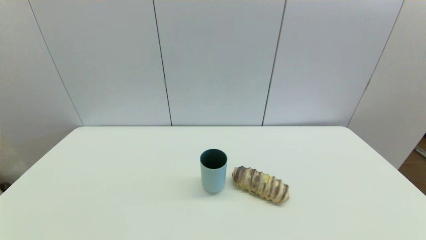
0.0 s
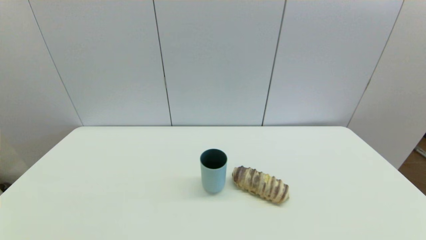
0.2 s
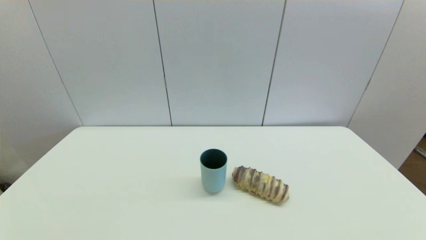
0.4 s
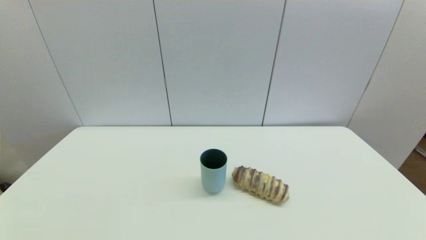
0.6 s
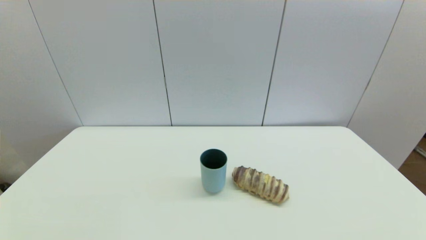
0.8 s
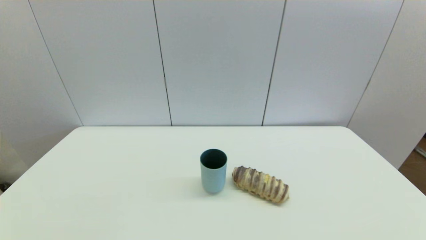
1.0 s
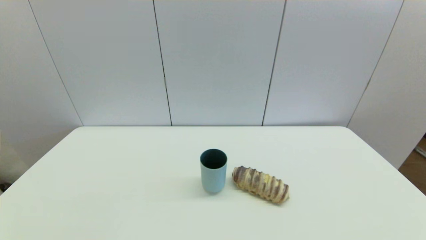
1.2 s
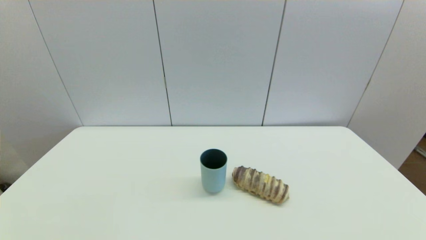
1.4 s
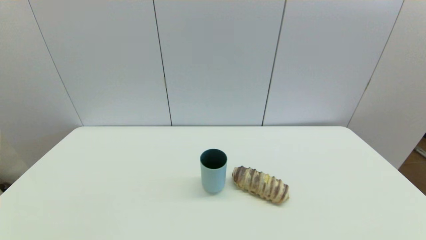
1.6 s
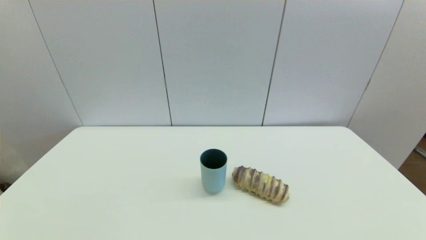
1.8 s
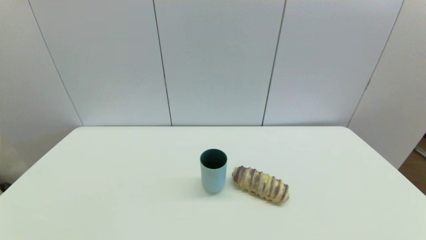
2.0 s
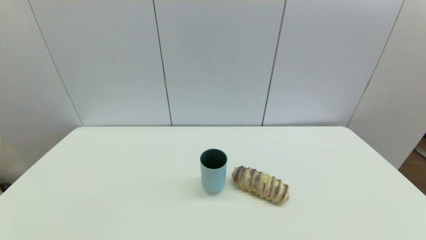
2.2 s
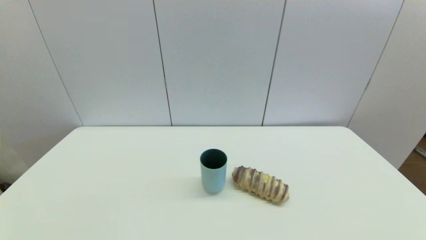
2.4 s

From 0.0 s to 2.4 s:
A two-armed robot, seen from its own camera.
From 1.2 s to 2.4 s: The two grippers keep their place.

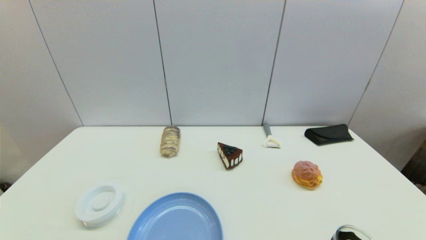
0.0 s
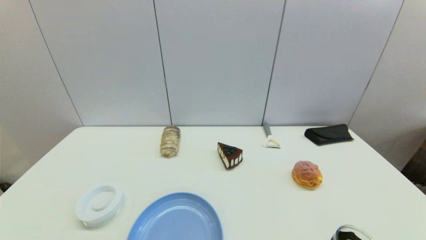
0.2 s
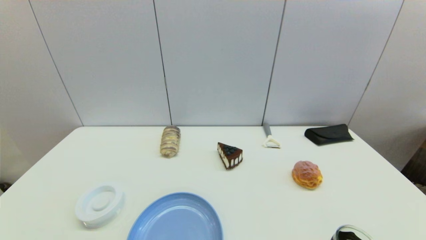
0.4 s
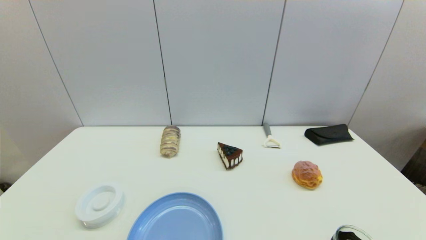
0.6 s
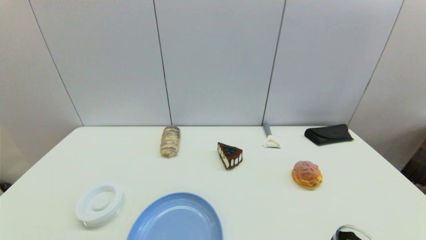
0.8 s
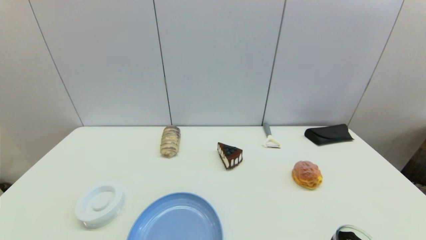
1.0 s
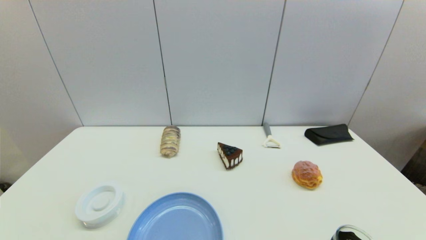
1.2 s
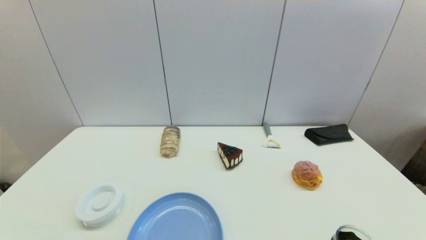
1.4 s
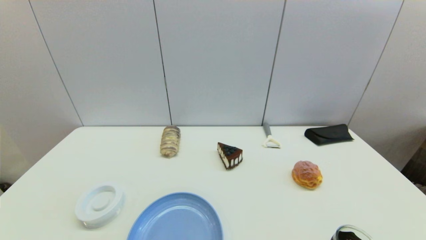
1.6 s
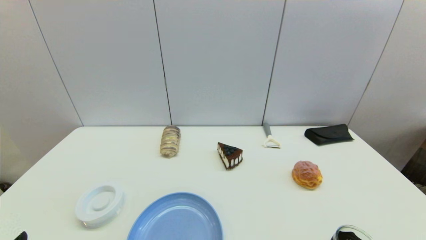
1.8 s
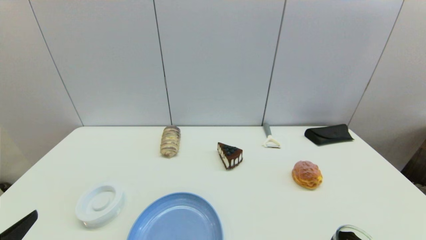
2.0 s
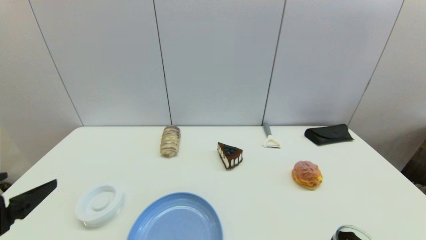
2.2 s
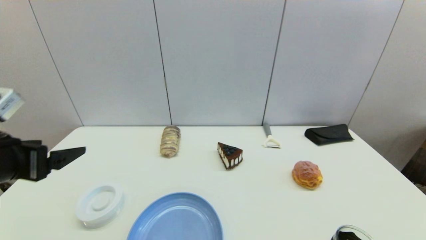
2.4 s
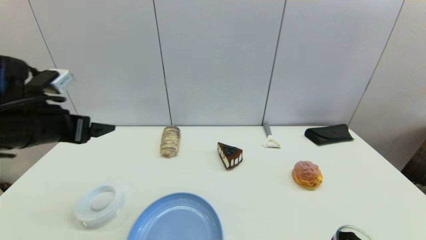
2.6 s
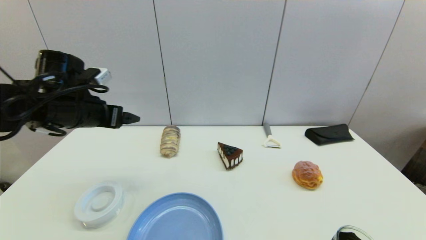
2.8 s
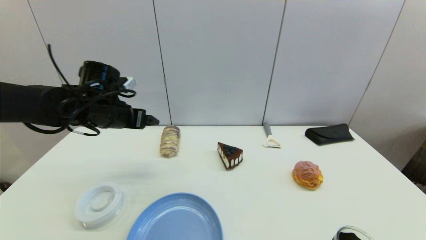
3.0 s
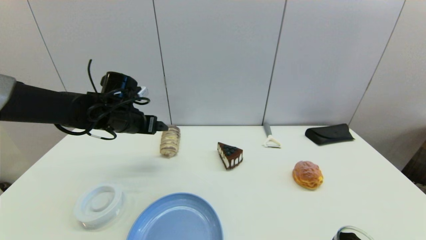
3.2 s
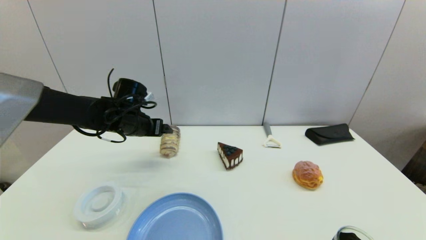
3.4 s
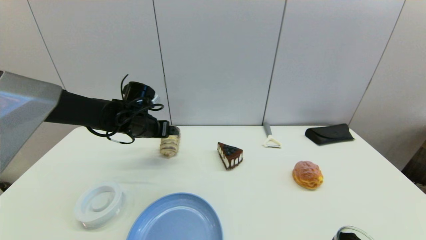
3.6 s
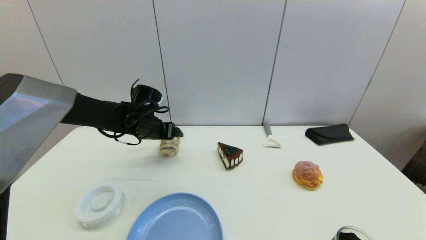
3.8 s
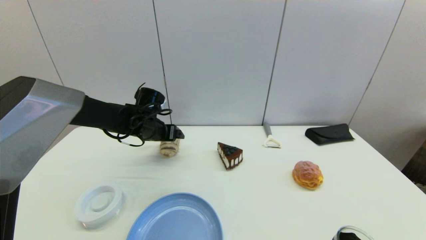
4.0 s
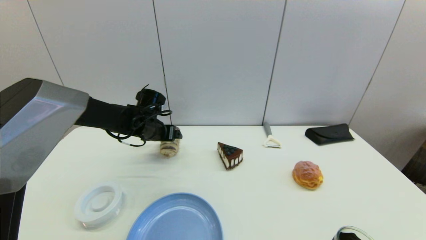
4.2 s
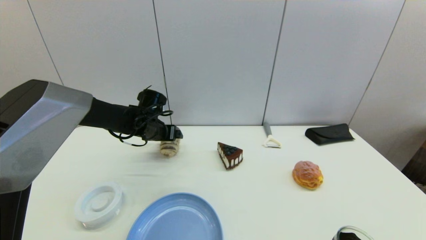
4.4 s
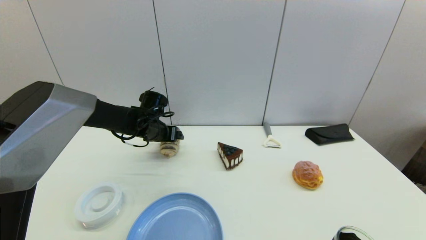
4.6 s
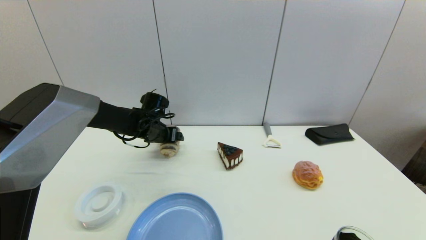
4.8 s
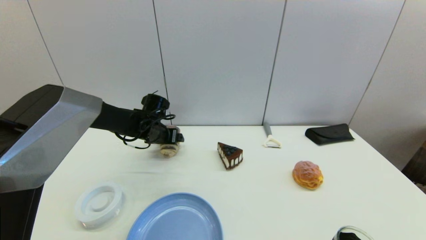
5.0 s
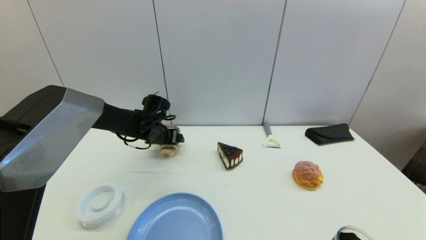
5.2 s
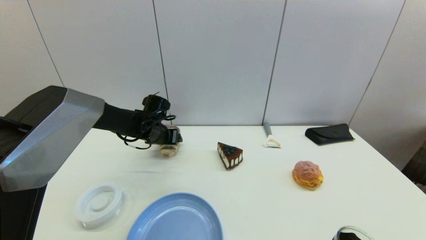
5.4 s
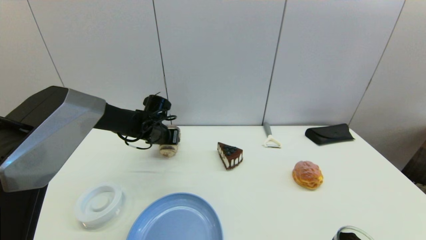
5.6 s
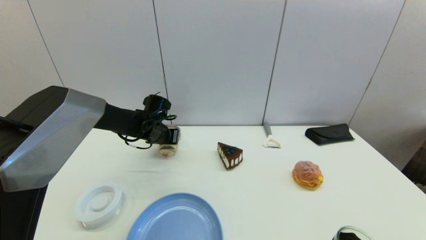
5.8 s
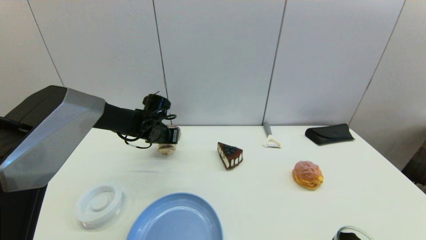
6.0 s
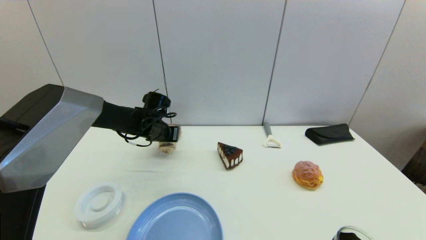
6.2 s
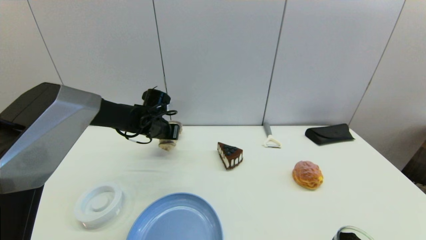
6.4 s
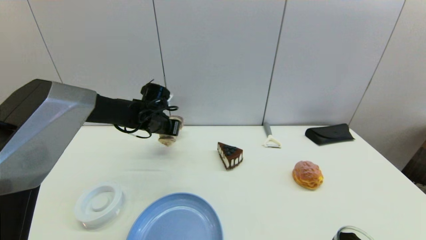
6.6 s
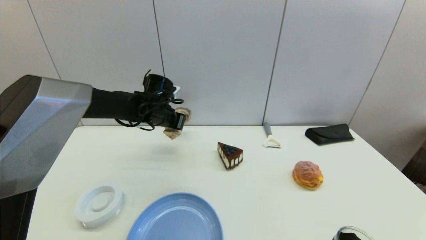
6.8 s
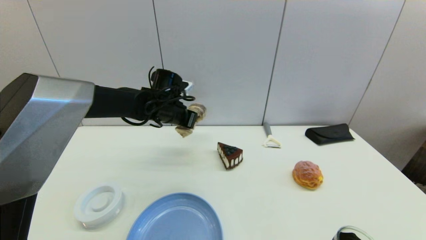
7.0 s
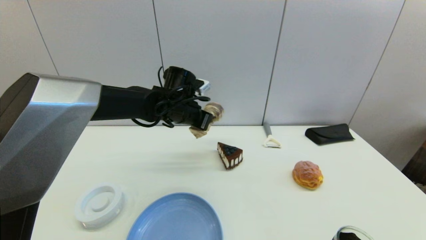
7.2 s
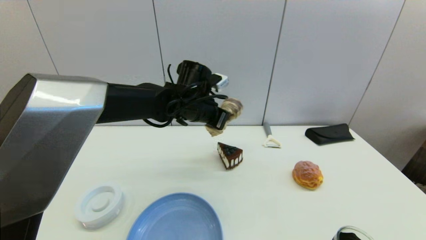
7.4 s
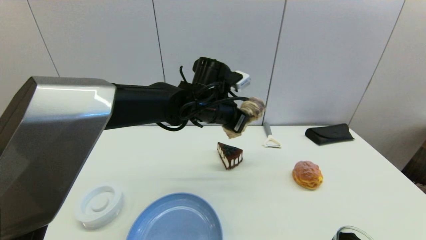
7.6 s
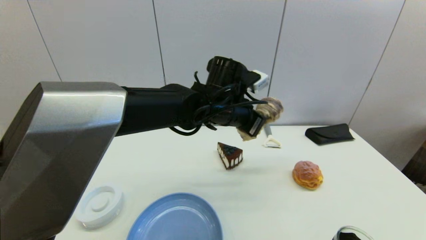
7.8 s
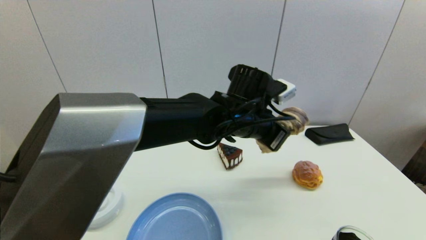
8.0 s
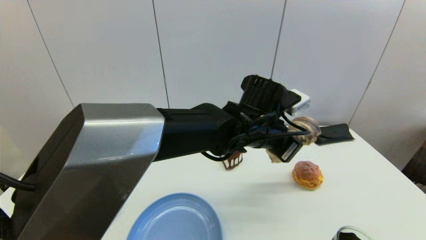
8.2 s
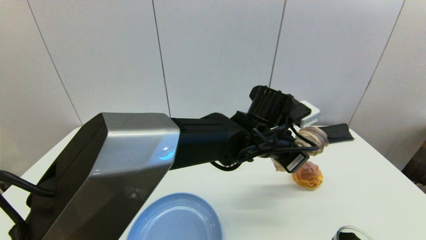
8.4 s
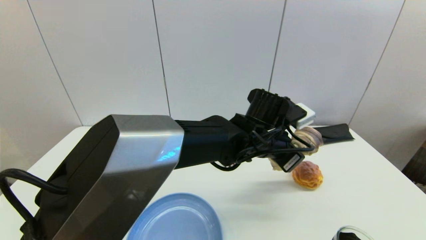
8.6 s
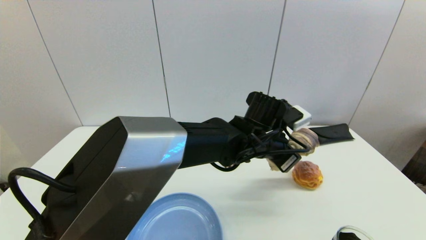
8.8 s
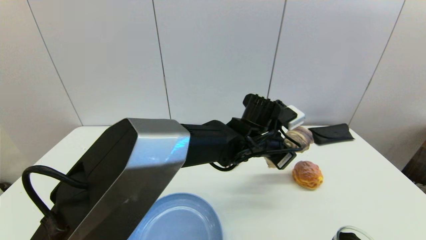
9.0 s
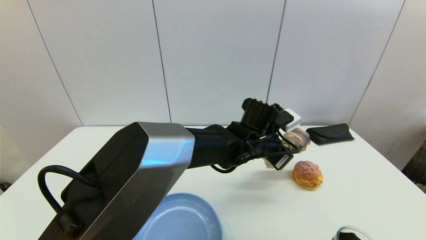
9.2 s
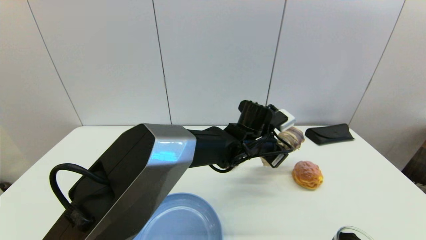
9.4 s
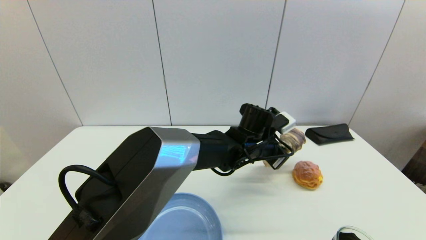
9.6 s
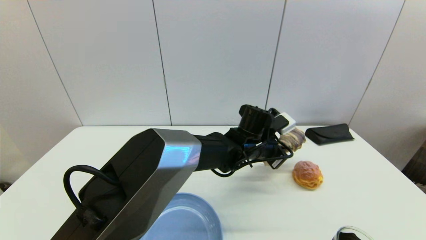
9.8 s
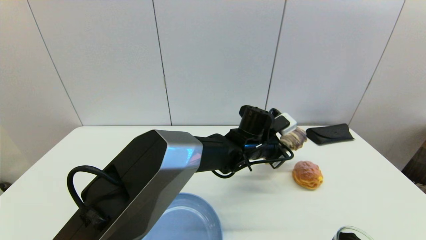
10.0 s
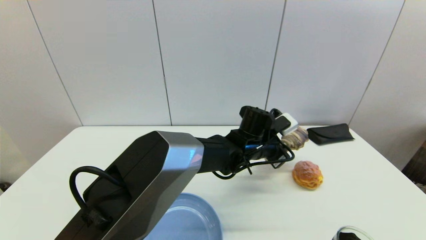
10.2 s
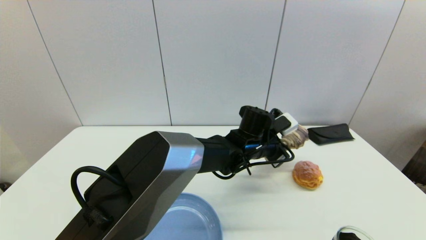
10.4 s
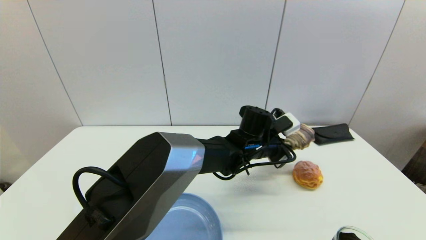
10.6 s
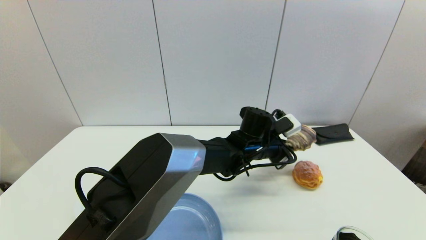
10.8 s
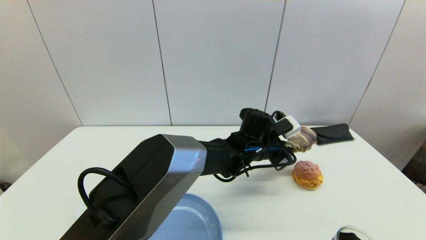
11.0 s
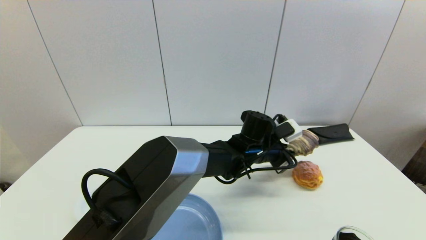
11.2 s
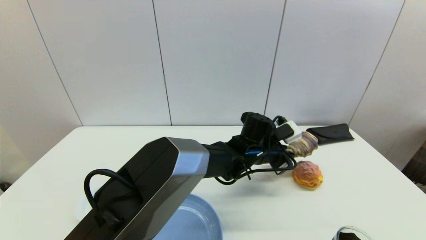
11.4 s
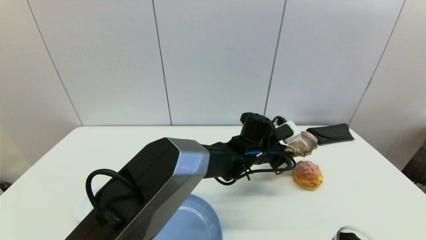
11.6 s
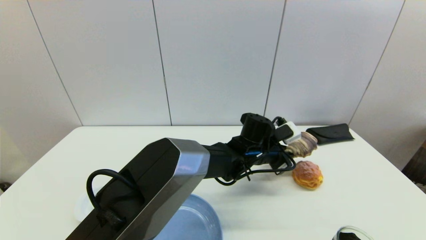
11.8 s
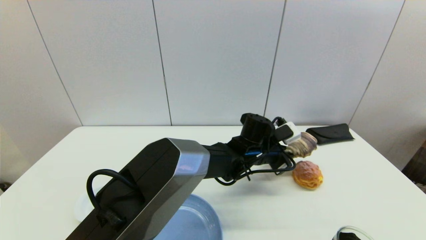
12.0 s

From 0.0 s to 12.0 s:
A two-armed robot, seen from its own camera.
Step, from 1.8 s to 5.8 s: Grasp the long bread with left gripper.
From 1.6 s to 3.0 s: The left gripper goes approximately 35 cm forward.
From 3.0 s to 4.4 s: The left gripper moves downward, forward and to the right, roughly 10 cm.
From 4.4 s to 6.0 s: The left gripper closes up.
From 6.0 s to 7.6 s: The left gripper moves to the right, upward and backward, approximately 20 cm.
From 7.6 s to 9.0 s: The left gripper travels to the right and downward by approximately 10 cm.
From 9.0 s to 10.4 s: The left gripper changes place by roughly 5 cm.
From 10.4 s to 12.0 s: There are only small adjustments of the grippers.

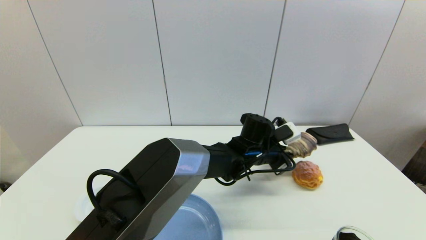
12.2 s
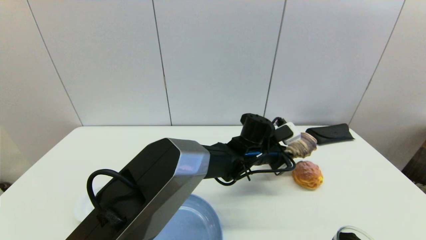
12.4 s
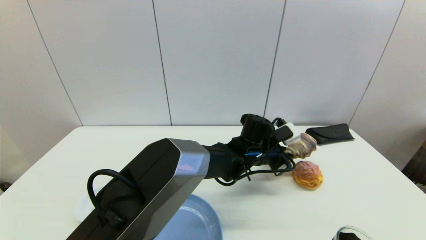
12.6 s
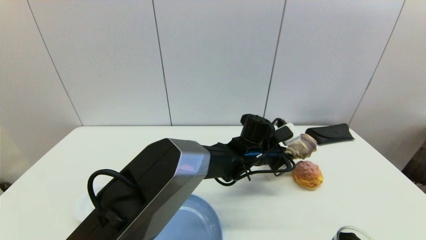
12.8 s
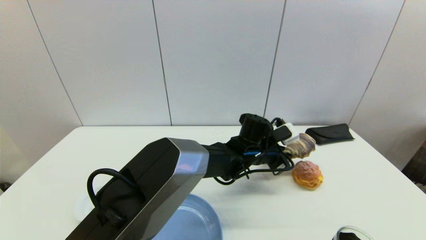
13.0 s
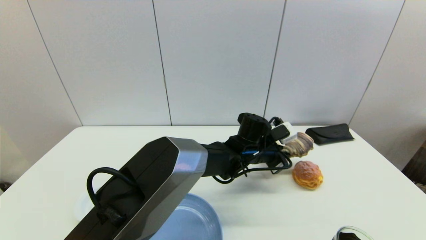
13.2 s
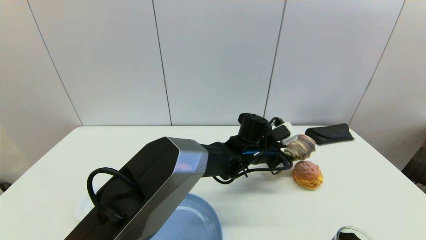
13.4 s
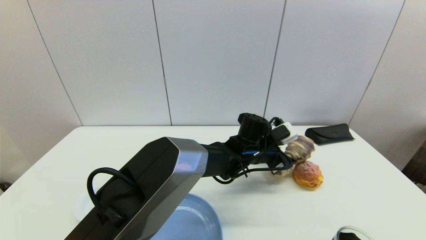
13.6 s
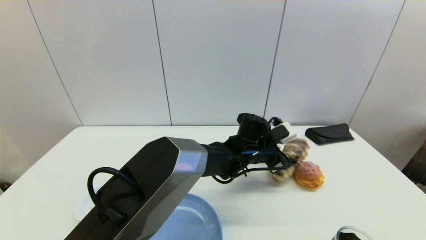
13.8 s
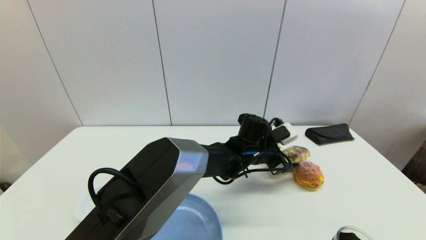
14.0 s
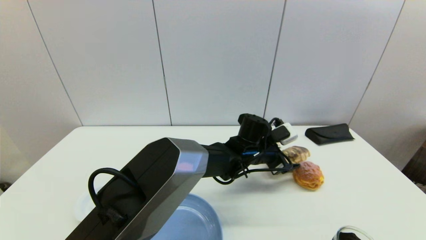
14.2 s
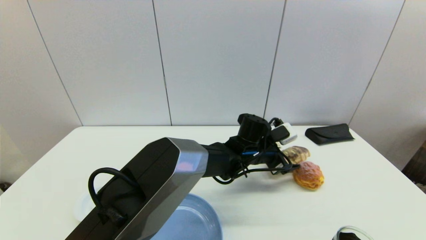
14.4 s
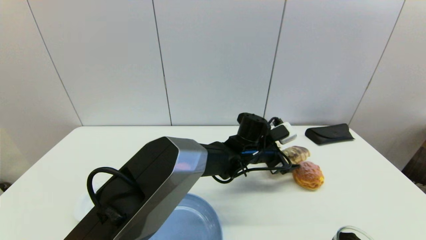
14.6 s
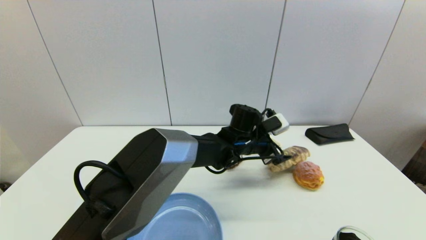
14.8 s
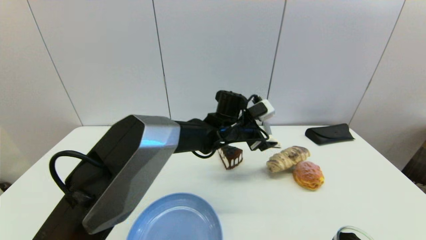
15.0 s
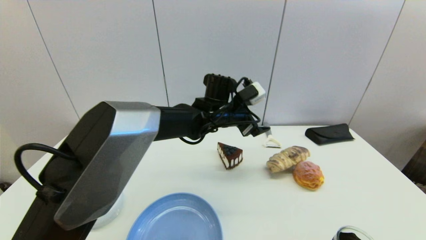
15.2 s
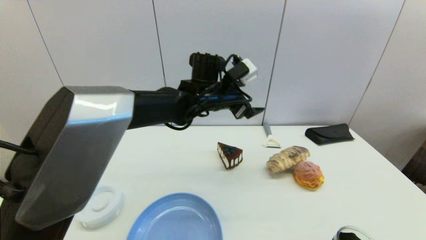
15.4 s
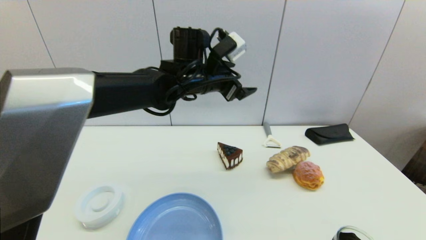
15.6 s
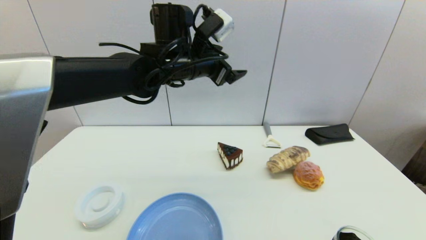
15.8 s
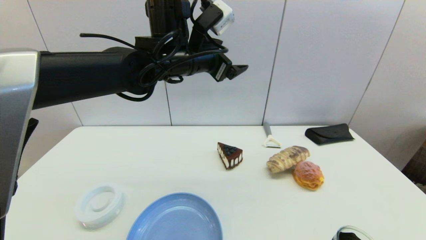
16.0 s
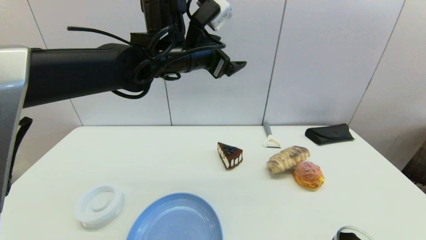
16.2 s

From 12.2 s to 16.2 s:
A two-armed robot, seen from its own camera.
Step, from 12.2 s to 14.4 s: Place the long bread on the table with left gripper.
From 12.2 s to 13.6 s: The left gripper opens its fingers.
From 13.6 s to 14.8 s: The left gripper opens up.
From 14.8 s to 16.2 s: The left gripper travels upward and to the left by some 25 cm.
